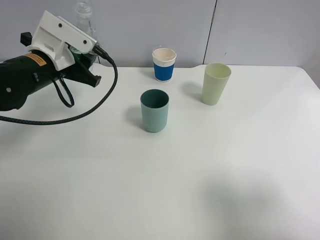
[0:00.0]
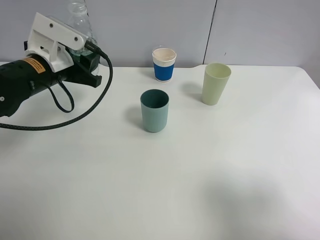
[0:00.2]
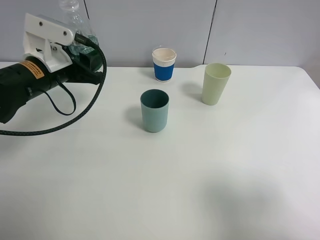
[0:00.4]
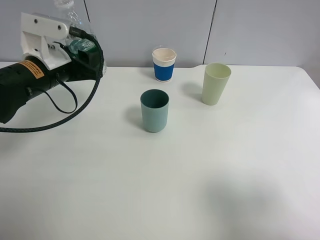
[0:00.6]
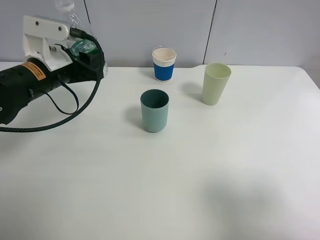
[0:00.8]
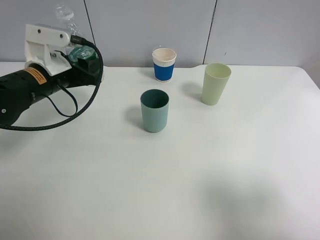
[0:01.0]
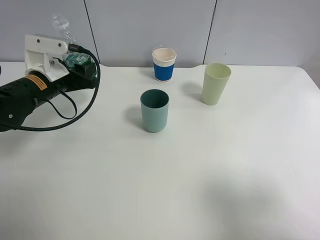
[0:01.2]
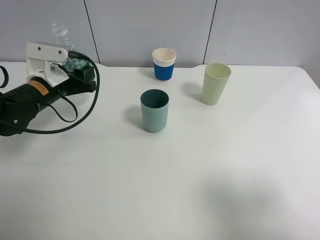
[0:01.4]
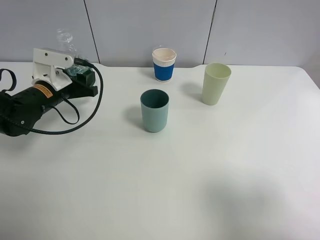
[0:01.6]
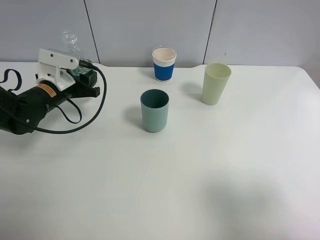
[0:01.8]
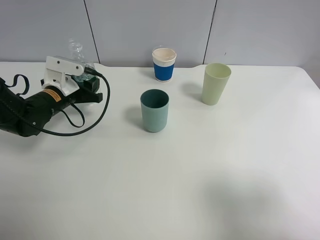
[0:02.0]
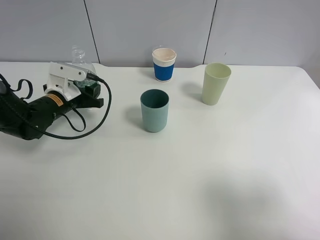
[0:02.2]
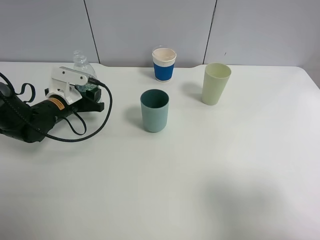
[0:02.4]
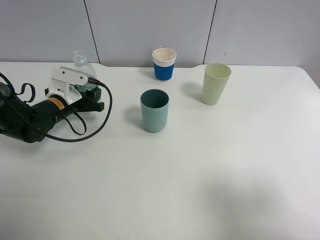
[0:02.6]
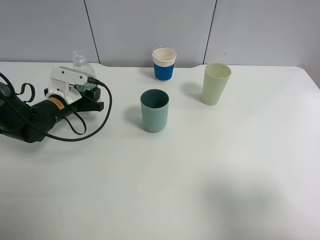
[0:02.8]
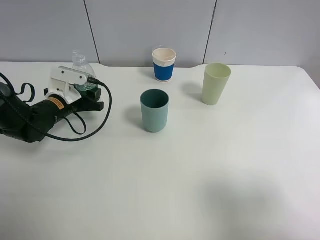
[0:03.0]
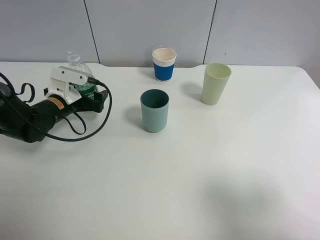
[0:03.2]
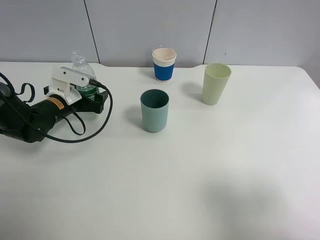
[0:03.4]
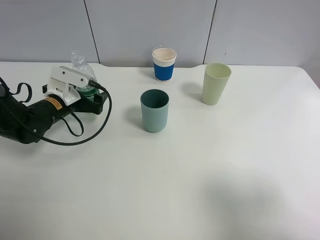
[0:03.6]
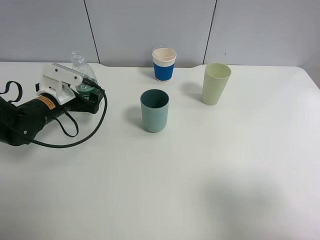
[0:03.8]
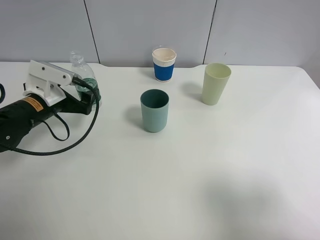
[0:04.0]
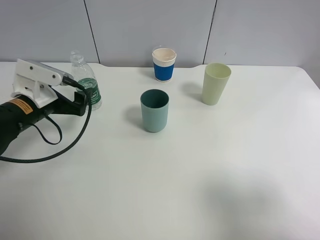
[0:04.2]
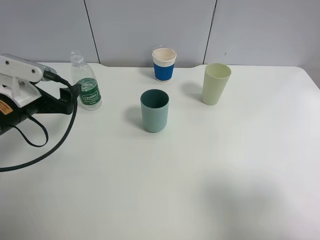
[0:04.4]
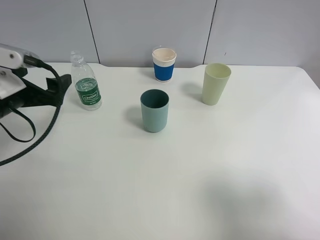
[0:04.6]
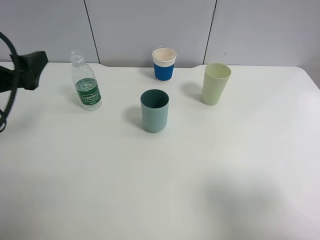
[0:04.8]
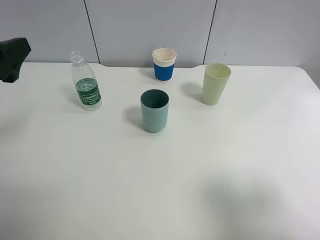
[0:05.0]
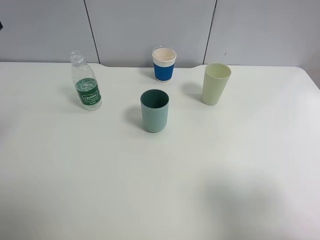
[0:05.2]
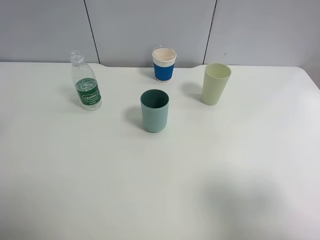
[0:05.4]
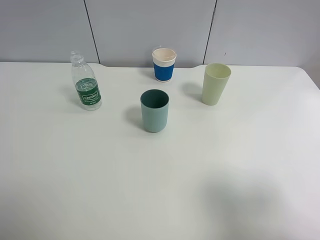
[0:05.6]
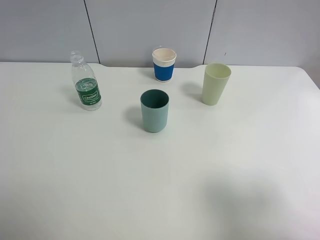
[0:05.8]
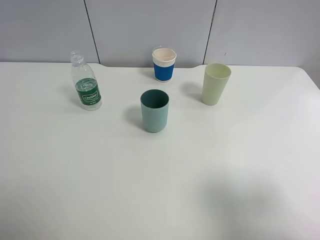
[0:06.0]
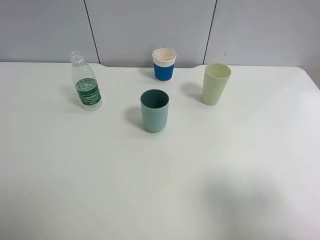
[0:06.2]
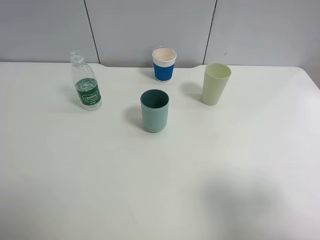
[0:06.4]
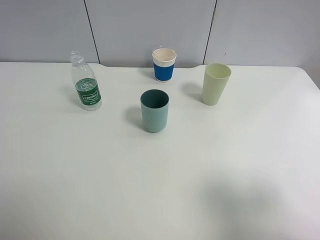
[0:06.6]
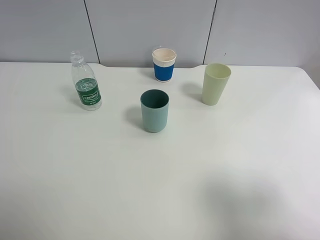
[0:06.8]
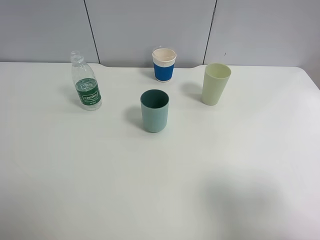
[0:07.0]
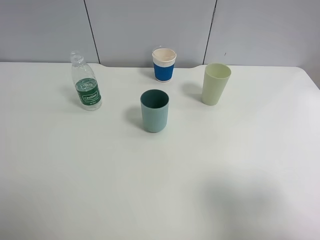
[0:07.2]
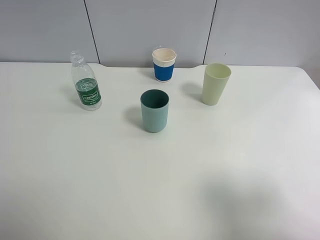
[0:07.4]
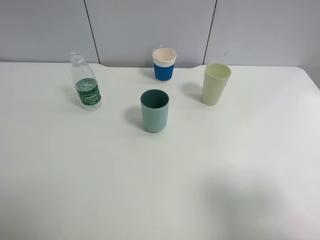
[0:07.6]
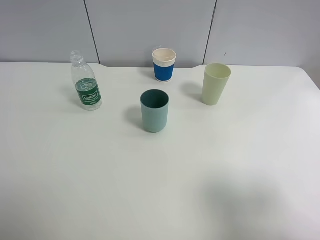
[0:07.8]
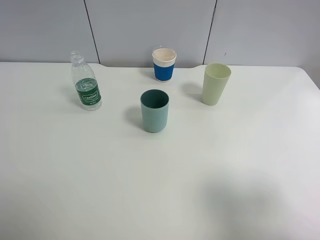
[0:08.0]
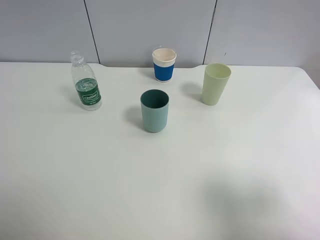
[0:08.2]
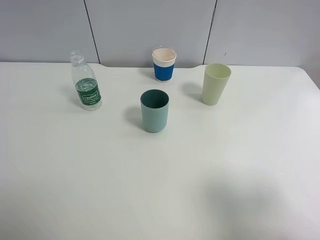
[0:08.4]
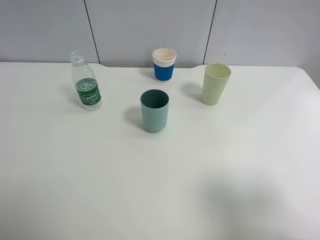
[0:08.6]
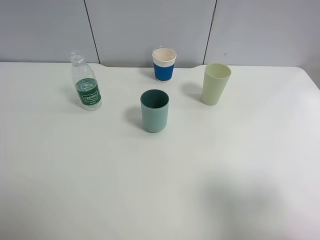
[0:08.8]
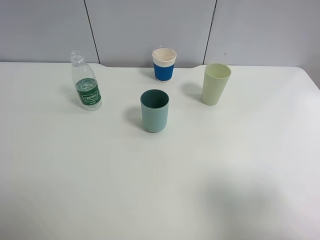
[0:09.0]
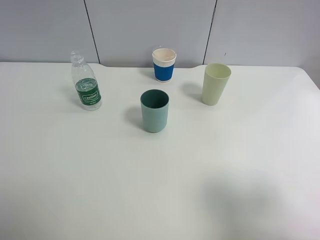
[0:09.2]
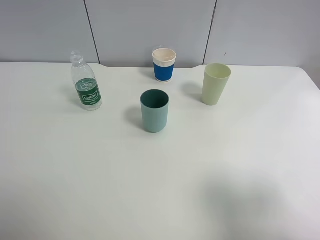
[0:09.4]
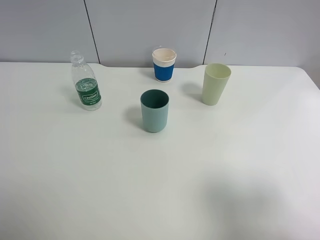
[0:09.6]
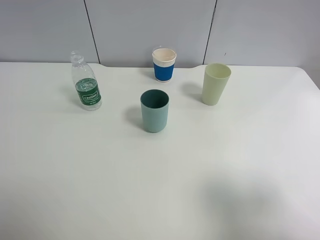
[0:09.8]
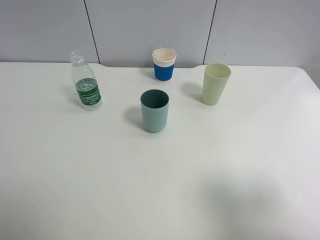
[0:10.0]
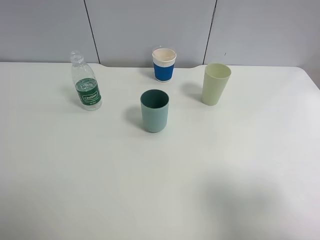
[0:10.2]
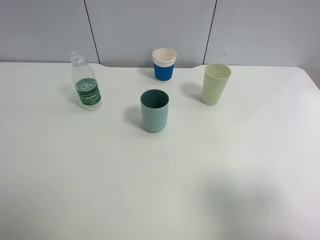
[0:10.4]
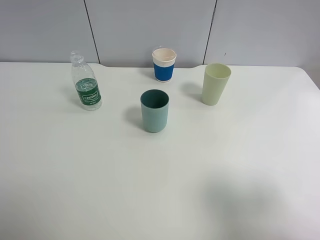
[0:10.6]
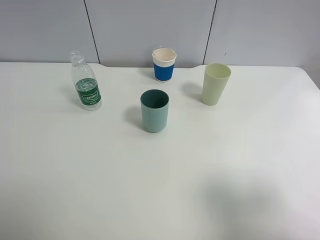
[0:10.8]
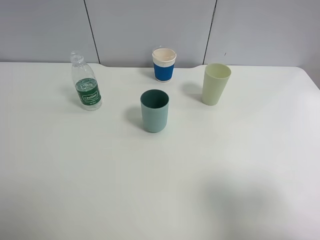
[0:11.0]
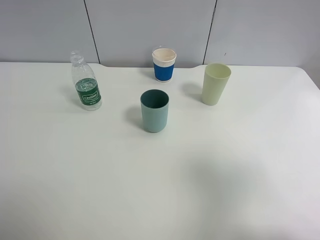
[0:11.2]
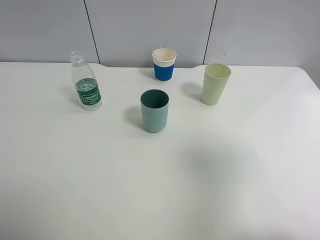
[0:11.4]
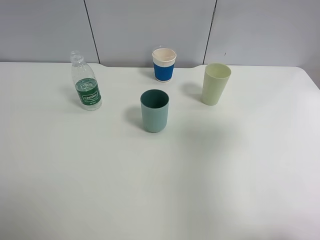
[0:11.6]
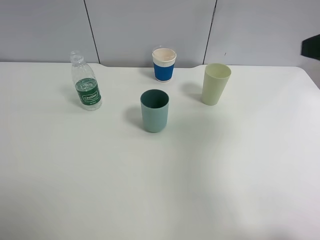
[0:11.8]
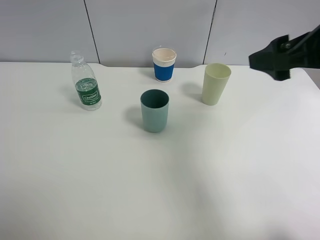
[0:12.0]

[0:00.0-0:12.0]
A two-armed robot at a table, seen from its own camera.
Task of the whole recording: use a clamp to hold the bottle of the drink, pour the beverage into a random cup, then clamp the cup containing the drink and pour the drink into another random cup.
Step, 0:00.0 to 0:04.2: Place the water bottle on the table with left gripper.
0:00.0 to 0:01.6: The left gripper is displaced downward by some 10 cm.
0:01.6 to 0:03.0: The grippers make only small movements.
0:03.0 to 0:04.4: The left gripper is displaced backward and upward by roughly 15 cm, and opens.
0:04.4 to 0:06.0: The left gripper moves upward and backward, some 25 cm.
0:07.6 to 0:10.4: Both grippers stay about where they are.
0:10.4 to 0:12.0: The right gripper goes about 20 cm forward.

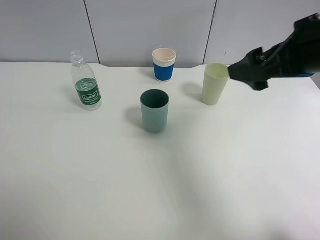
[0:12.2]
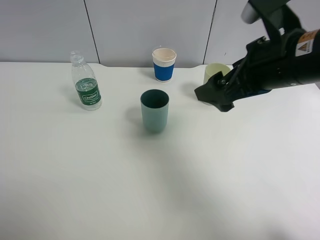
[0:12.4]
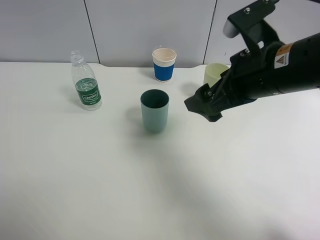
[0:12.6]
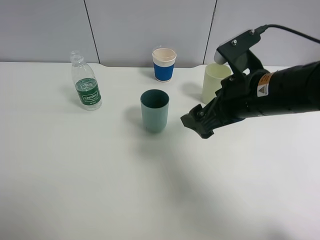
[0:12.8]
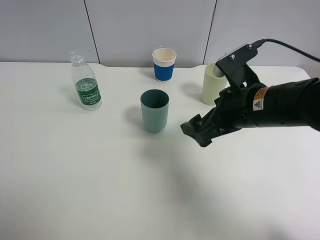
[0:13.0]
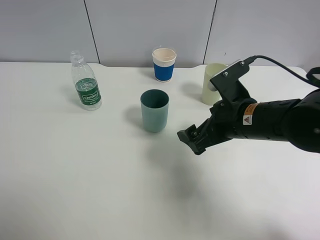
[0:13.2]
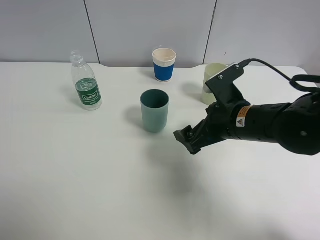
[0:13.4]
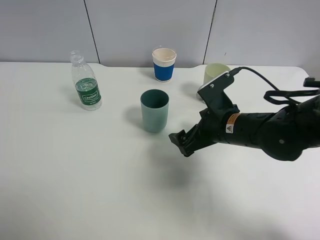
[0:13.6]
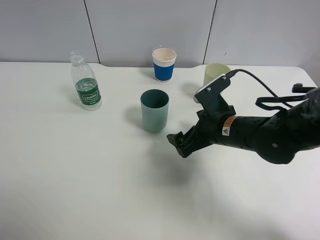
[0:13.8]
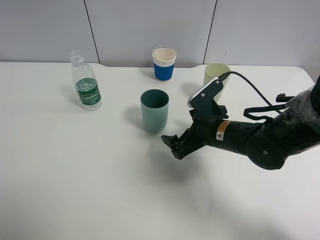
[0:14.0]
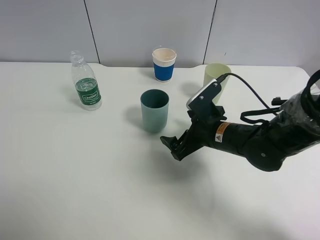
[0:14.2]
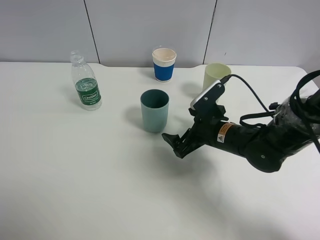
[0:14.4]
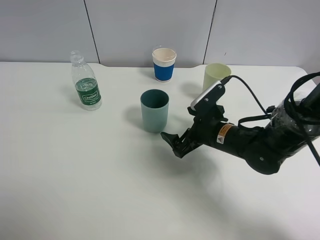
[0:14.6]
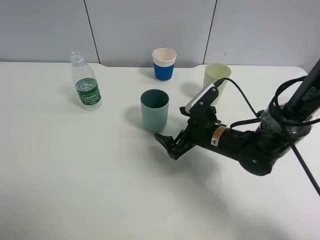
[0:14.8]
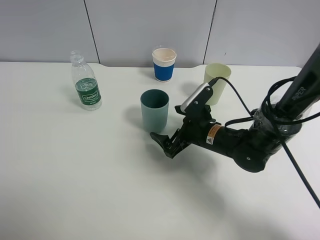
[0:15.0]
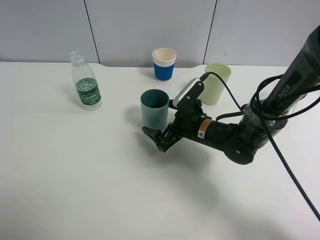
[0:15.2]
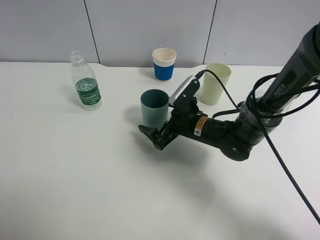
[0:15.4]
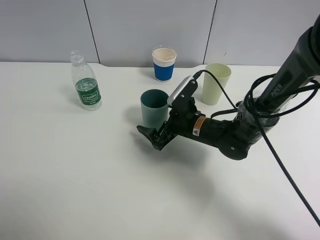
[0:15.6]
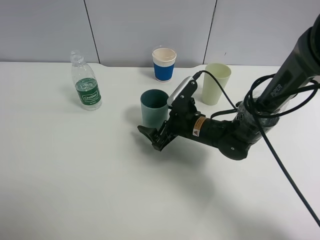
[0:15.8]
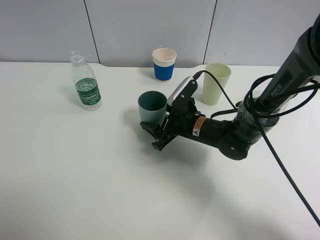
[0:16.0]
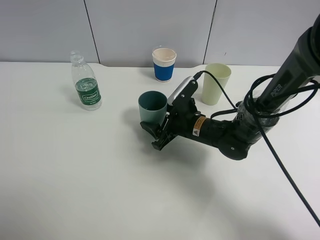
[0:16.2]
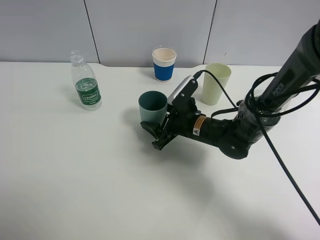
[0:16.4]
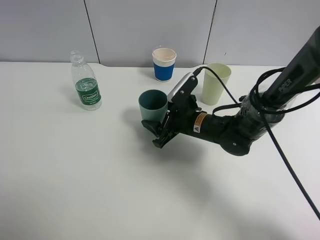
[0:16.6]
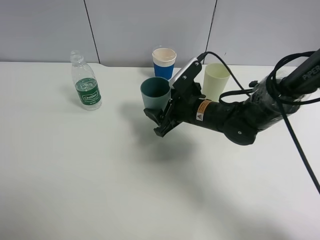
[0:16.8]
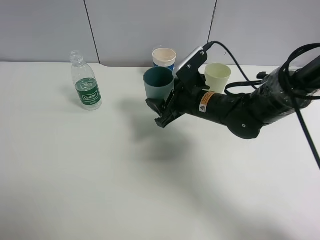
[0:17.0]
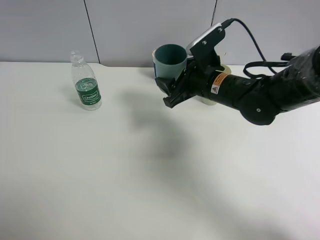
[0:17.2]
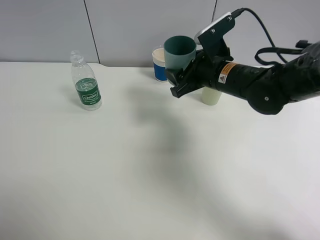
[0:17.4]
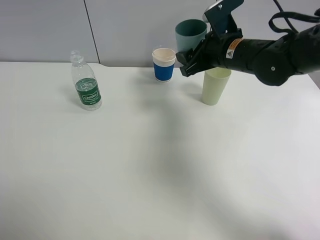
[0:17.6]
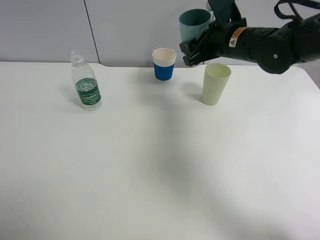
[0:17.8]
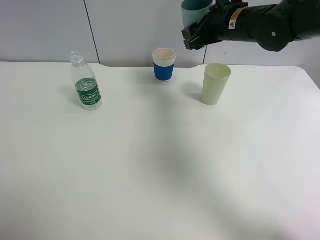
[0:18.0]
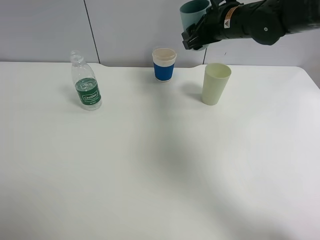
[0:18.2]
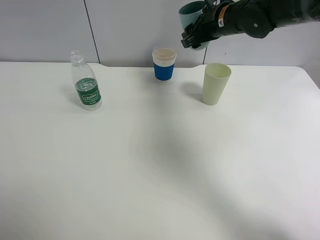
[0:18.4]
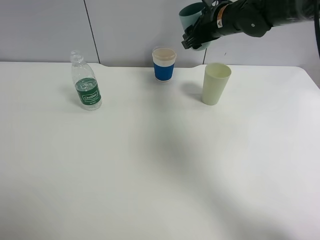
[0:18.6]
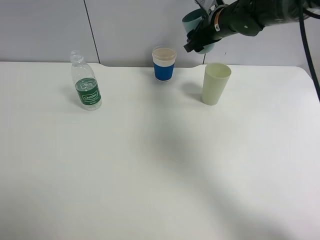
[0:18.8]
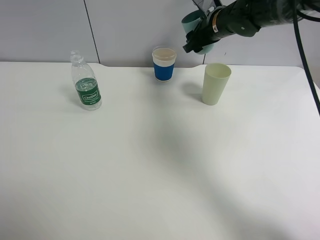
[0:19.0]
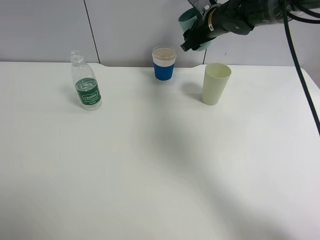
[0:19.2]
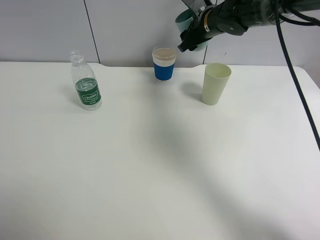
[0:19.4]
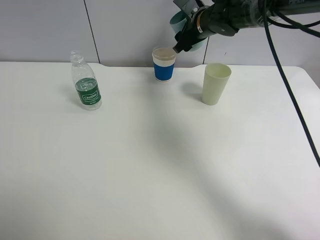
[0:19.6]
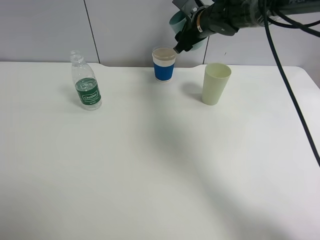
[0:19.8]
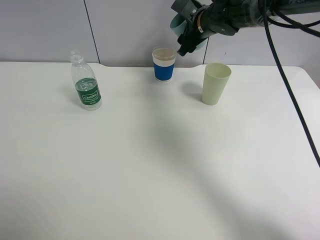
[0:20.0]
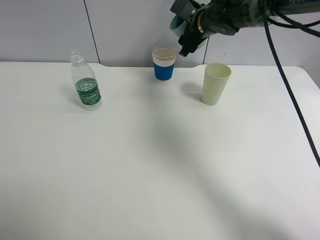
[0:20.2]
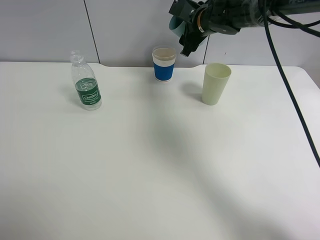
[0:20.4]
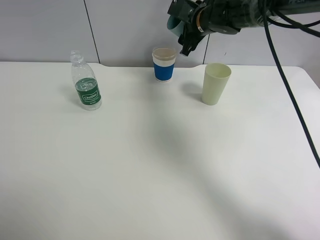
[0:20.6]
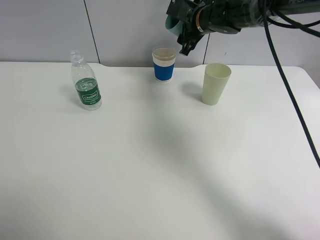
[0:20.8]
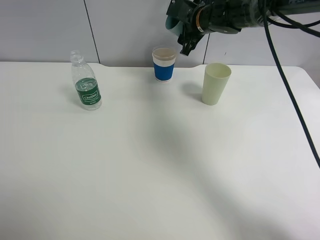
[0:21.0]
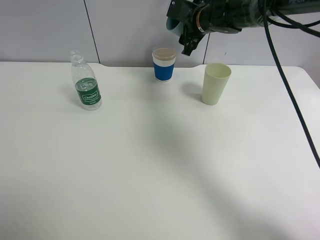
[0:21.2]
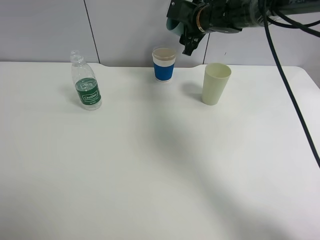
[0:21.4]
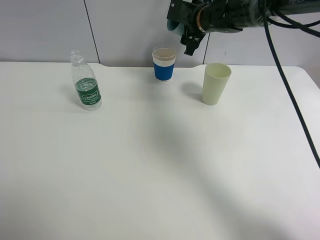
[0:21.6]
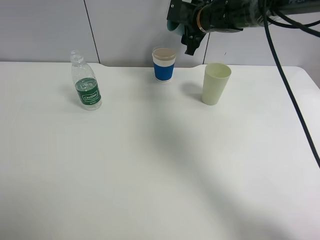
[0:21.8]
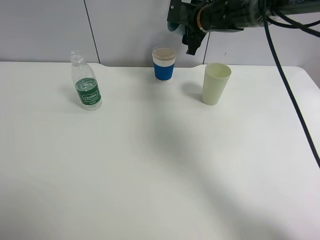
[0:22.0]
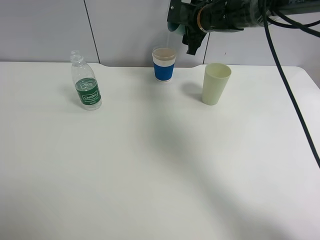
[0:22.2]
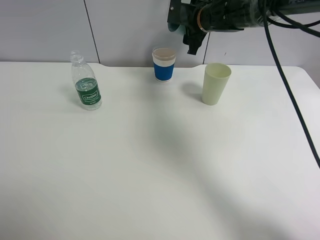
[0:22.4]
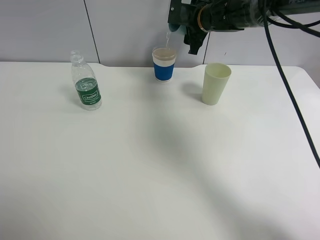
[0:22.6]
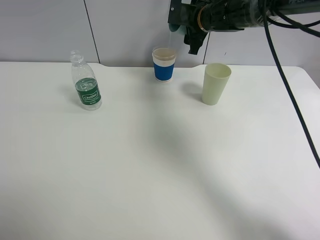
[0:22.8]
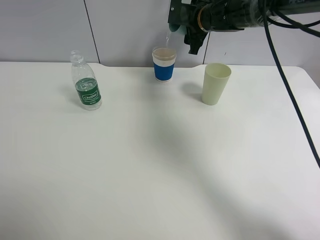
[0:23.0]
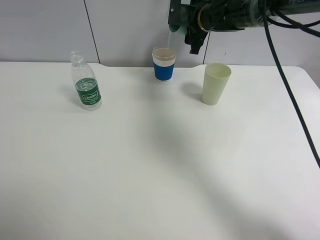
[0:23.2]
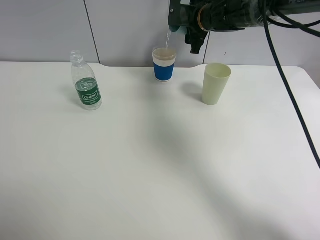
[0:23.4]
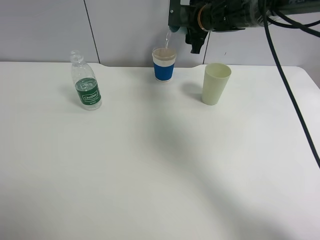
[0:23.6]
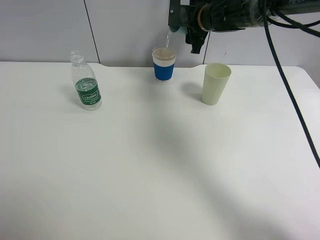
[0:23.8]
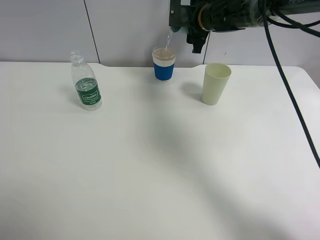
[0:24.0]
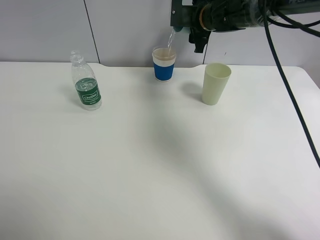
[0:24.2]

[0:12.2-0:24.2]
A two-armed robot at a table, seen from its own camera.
Task of the whole recording: use a clamp to hold the bottle of the drink, pour the beverage into a random cup, then clamp the cup containing the drink and pour the drink into another random cup.
Step, 0:12.2 to 0:17.4: Pick up the blue plastic cup bottle with right gripper.
0:12.2 to 0:13.8: The right gripper is displaced downward by approximately 20 cm.
0:13.8 to 0:15.2: The right gripper travels downward by about 5 cm.
0:15.2 to 0:16.6: The right gripper closes up.
0:16.6 to 0:18.2: The right gripper goes approximately 20 cm upward and forward.
0:18.2 to 0:19.8: The right gripper travels forward by about 5 cm.
